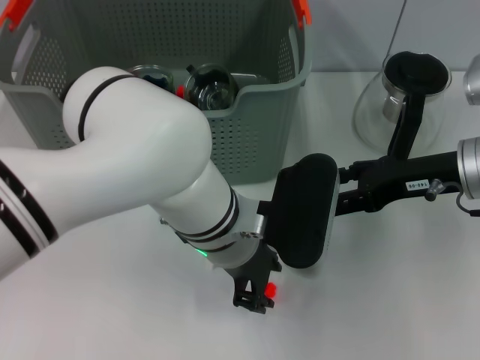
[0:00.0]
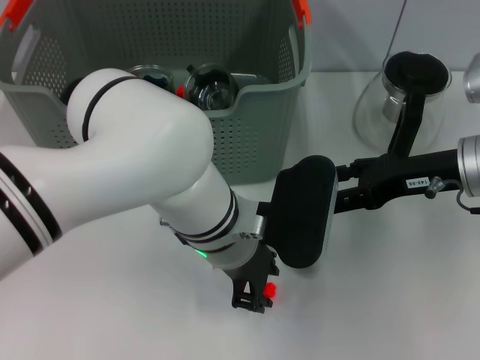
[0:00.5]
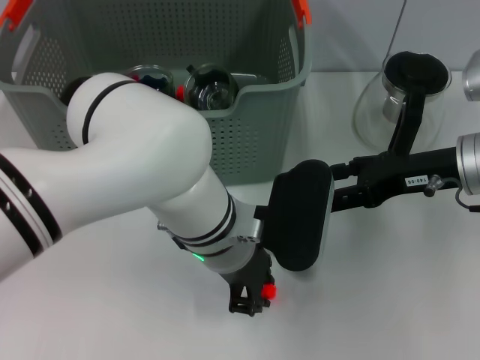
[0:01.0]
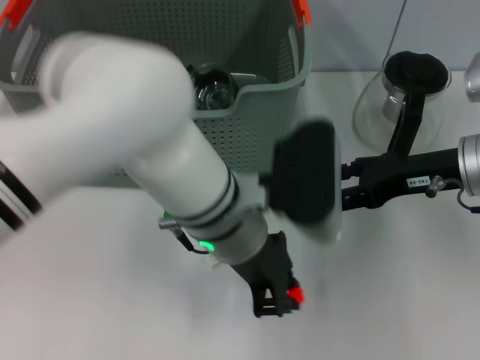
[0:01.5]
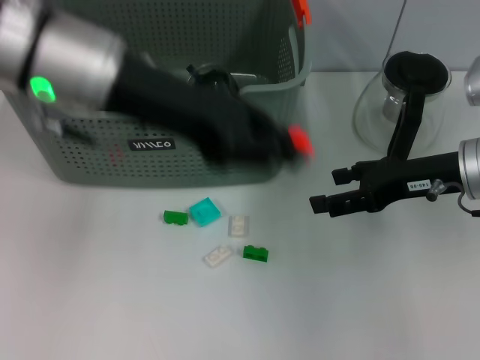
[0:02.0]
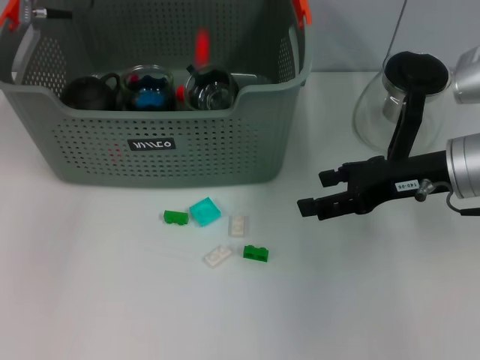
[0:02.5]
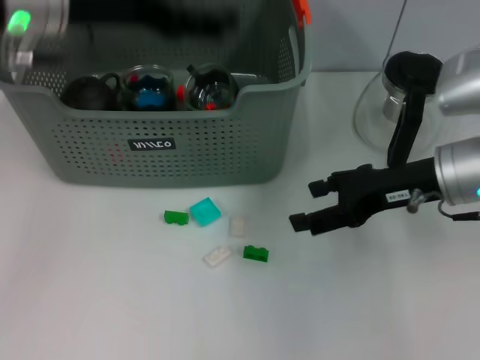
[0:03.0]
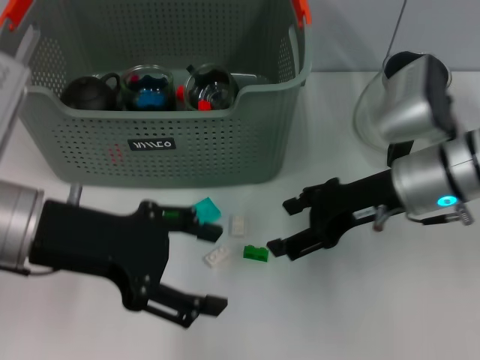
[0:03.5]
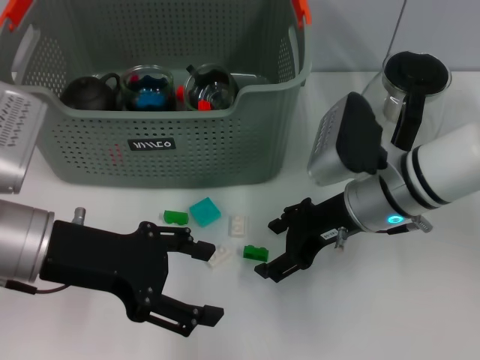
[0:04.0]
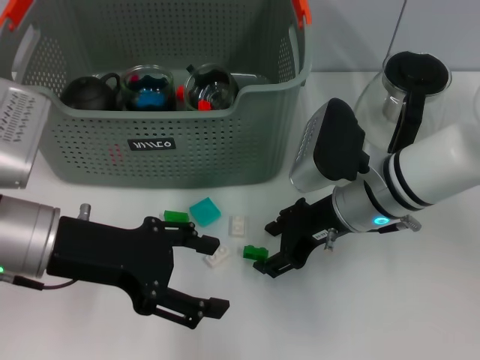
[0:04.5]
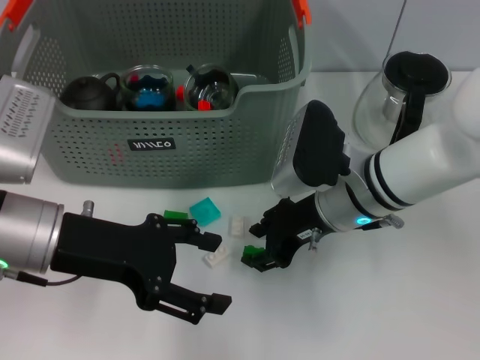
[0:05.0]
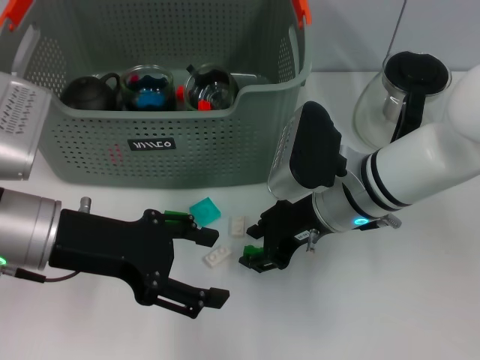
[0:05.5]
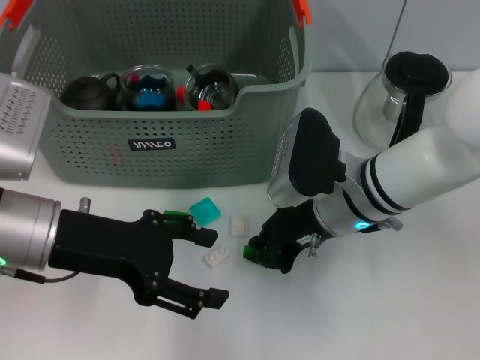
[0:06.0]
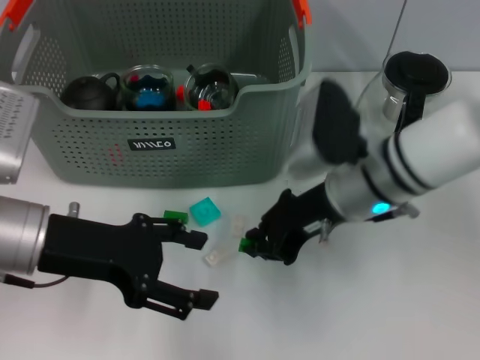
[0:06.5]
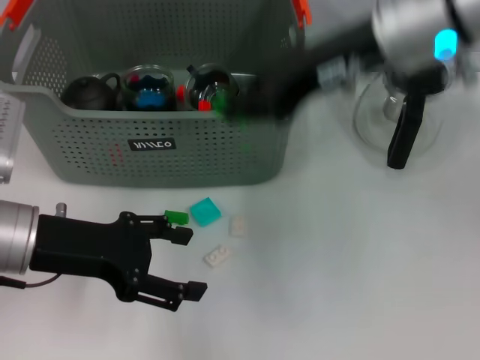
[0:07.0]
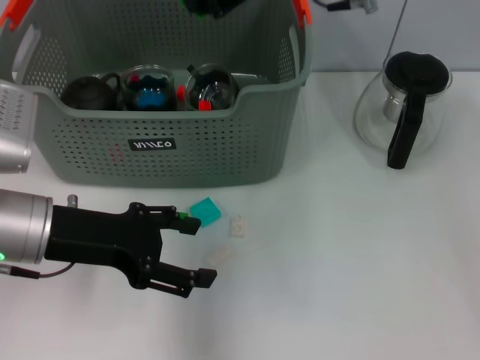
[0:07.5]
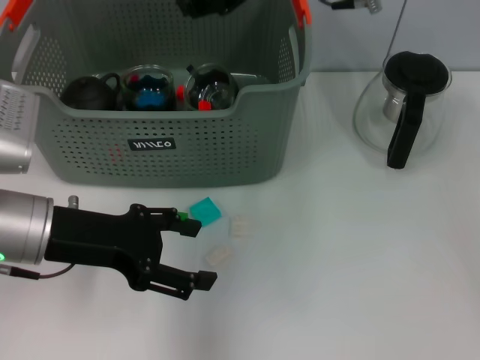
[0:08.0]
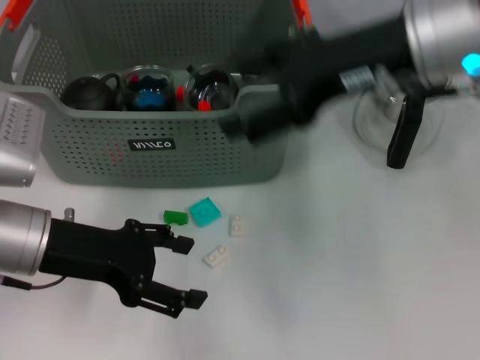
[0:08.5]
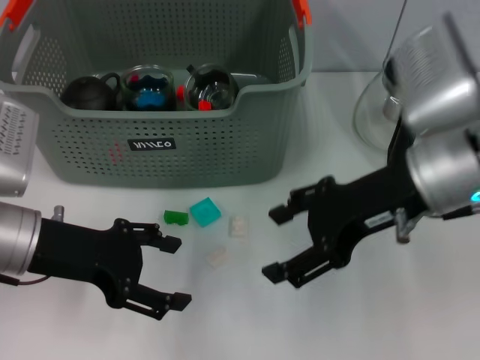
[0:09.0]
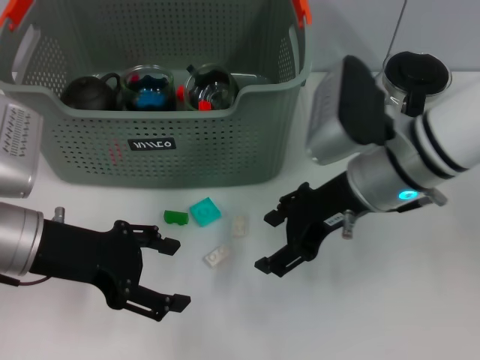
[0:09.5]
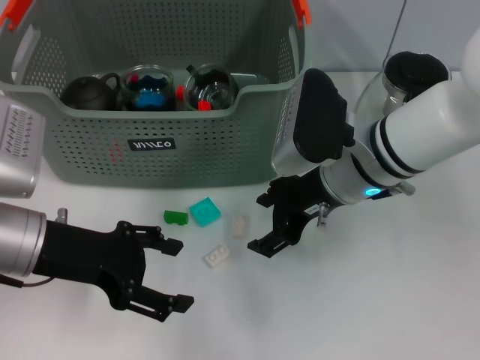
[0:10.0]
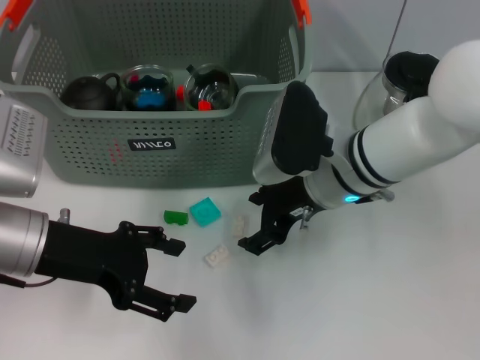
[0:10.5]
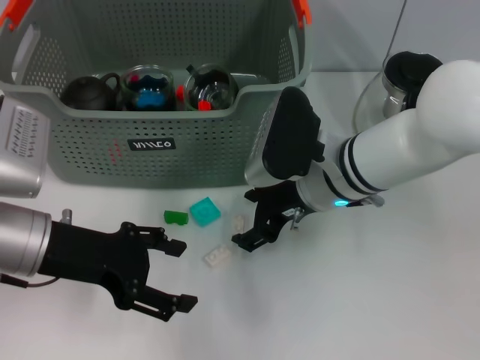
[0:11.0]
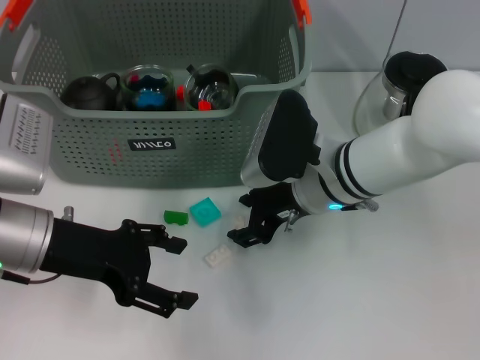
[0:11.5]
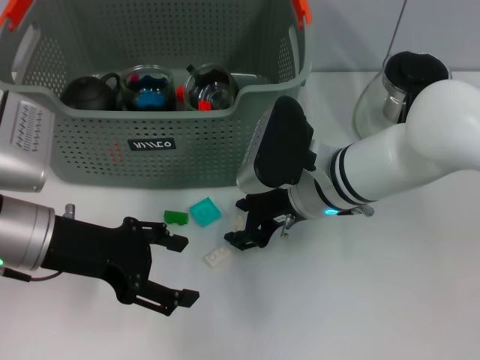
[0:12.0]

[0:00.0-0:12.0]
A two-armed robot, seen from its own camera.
Task of the whole recording: pick up the teacup on the table and place it into the storage bin, pick up the block on the table and place it into the storage bin.
Step, 0:01.5 to 0:02.5: Place the orange block in the storage box with left gripper.
Step, 0:03.5 to 0:06.0: Grasp the green block with right gripper.
Step, 0:06.5 to 0:08.0: Place the green block in the storage box with right gripper.
0:00.0 to 0:02.0: The left gripper goes approximately 20 cm upward and to the left, and closes.
0:02.0 to 0:04.0: The left gripper moves downward, backward and to the left, roughly 15 cm, and opens. The right gripper travels to the left by approximately 10 cm.
0:04.0 to 0:06.0: The right gripper closes.
0:06.0 to 0:08.0: The right gripper goes some 20 cm upward and forward.
0:08.0 to 0:10.0: The right gripper is displaced downward and backward by approximately 15 cm, and opens.
0:10.0 to 0:12.0: There are only small adjustments of the grippers.

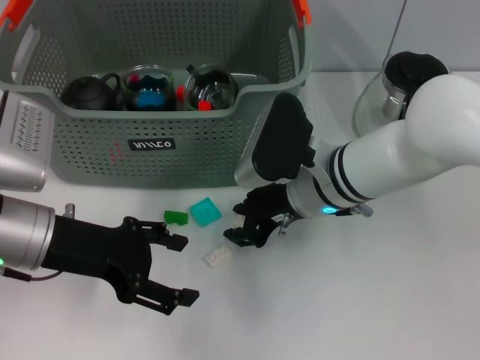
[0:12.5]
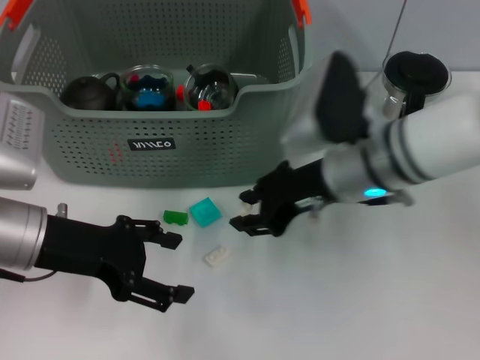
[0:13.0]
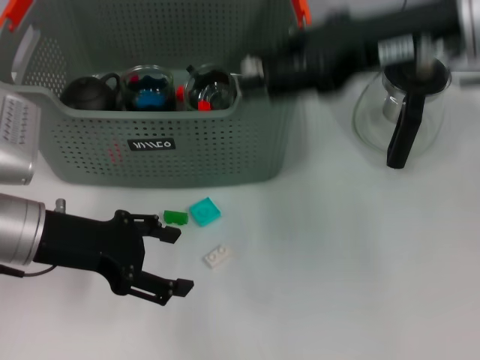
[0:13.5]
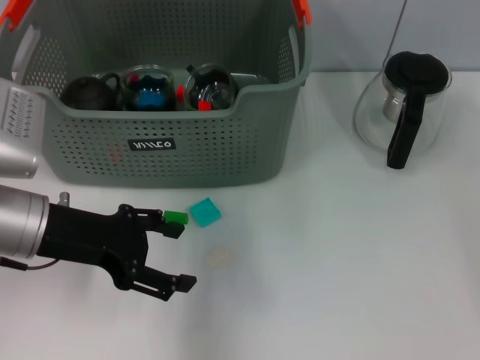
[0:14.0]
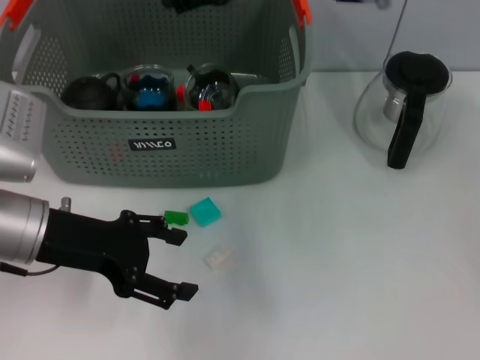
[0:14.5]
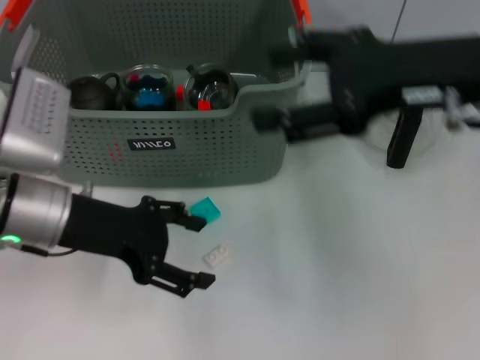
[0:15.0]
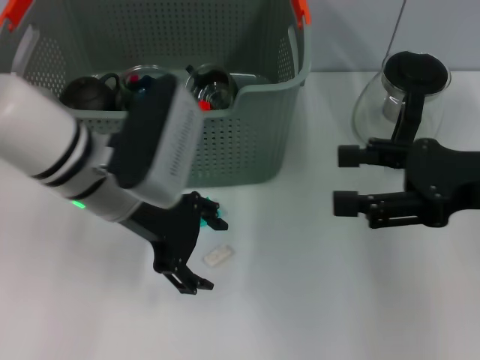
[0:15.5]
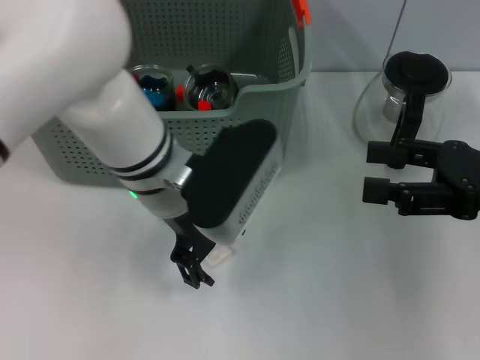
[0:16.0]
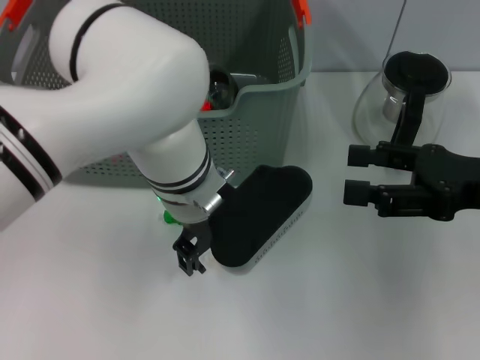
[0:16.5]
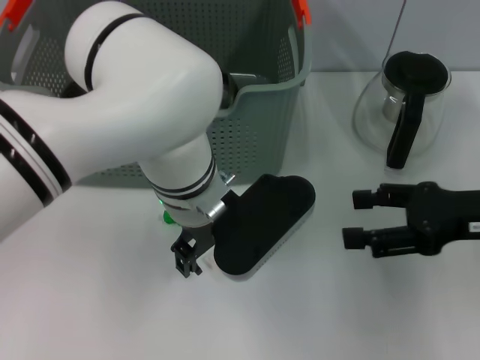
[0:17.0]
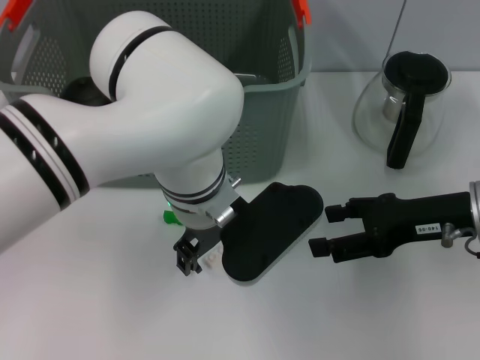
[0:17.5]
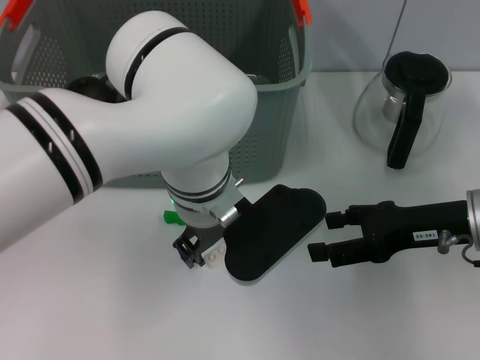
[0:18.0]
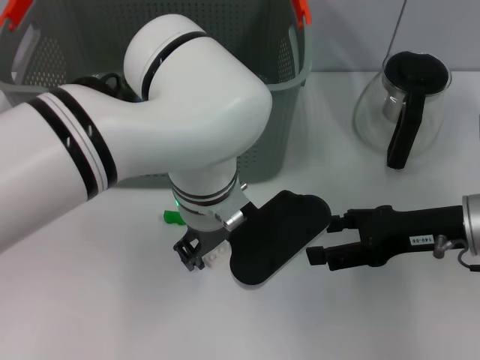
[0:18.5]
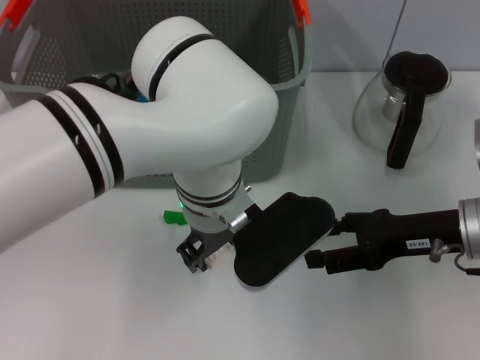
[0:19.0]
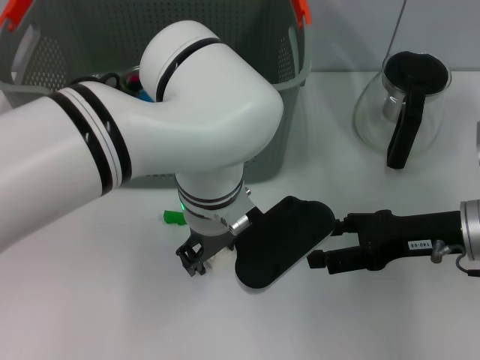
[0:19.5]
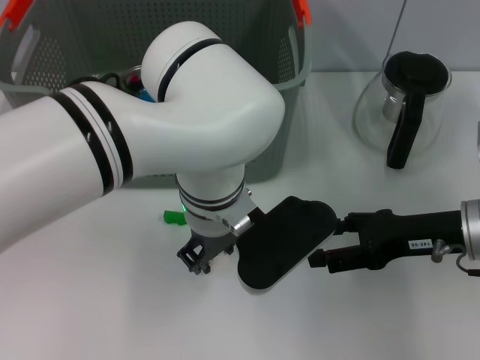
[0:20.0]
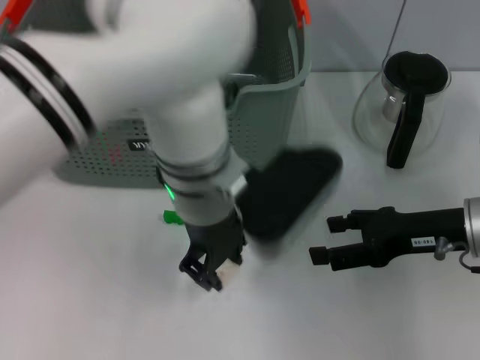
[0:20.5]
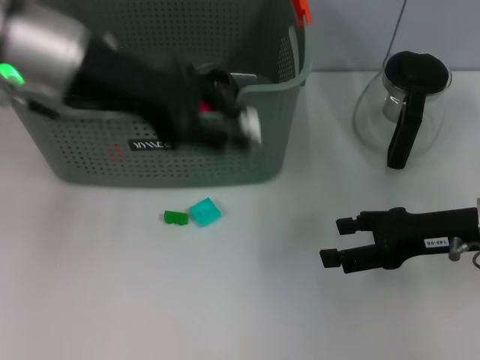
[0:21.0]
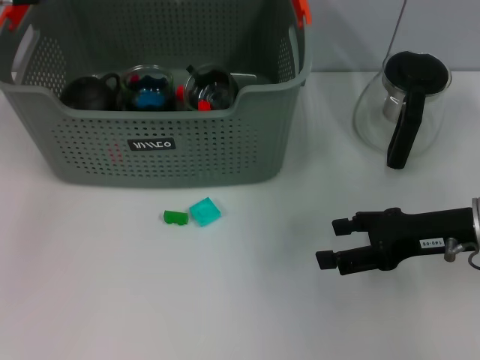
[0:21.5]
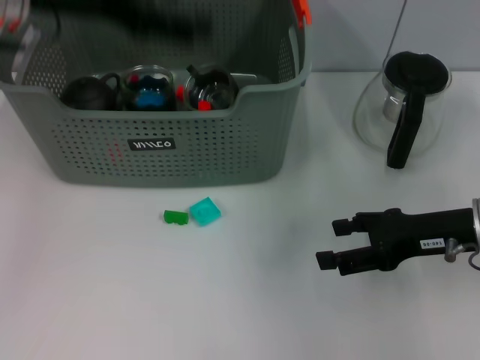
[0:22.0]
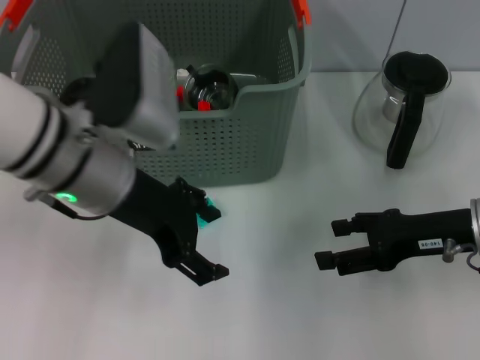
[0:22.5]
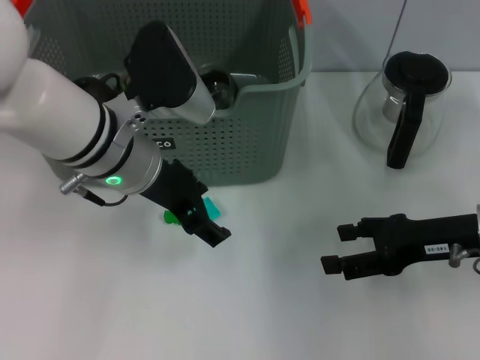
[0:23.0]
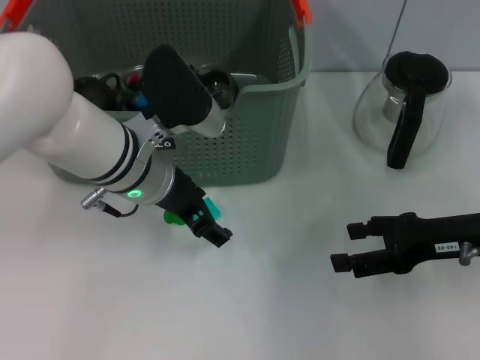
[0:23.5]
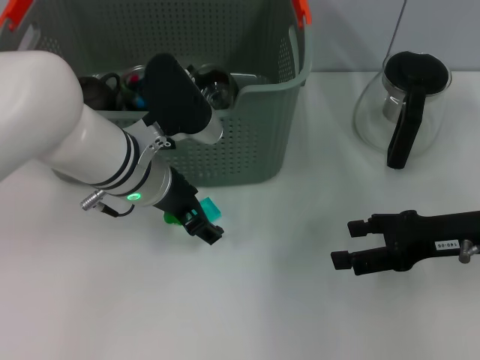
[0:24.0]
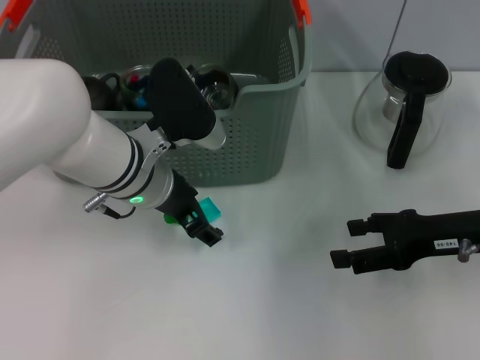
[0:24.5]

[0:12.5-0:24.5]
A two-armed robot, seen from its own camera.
Task of the whole recording: pick up the teacup on the table and place it into the storage bin, pick up the block on the table and place it into the storage bin.
Step, 0:12.5 to 0:14.0: Place the white block in the storage box with right gripper.
Step, 0:14.5 to 0:20.0: Grasp the white block with left gripper.
Step, 0:20.5 to 0:21.5: Place the white block in the storage box with left gripper.
0:12.5 to 0:14.5: The right gripper travels upward by roughly 20 cm, and opens.
0:14.5 to 0:16.5: The left gripper travels to the right by roughly 20 cm; the right gripper goes roughly 25 cm to the right, backward and downward.
0:16.5 to 0:18.5: The right gripper travels downward by some 5 cm.
0:20.5 to 0:22.5: The left gripper goes approximately 10 cm to the left, and opens its fingers.
0:22.5 to 0:24.5: The left gripper goes approximately 10 cm downward.

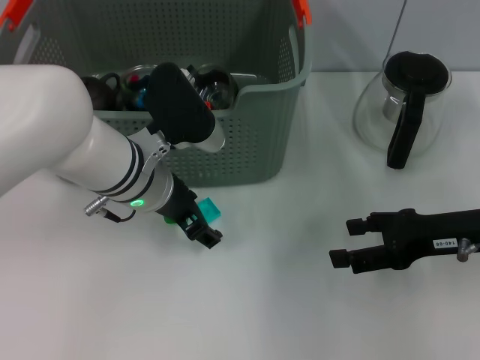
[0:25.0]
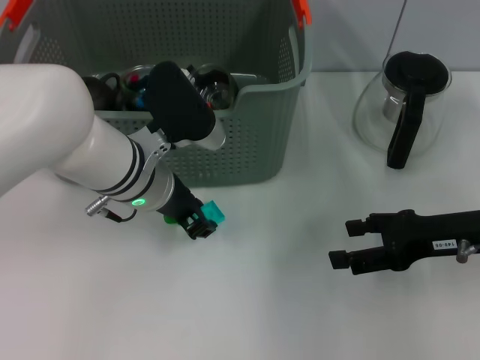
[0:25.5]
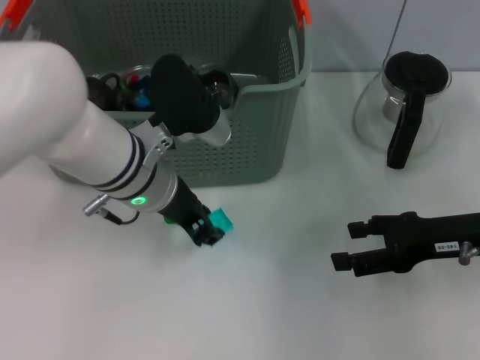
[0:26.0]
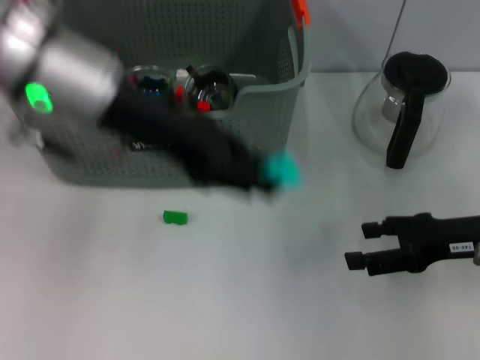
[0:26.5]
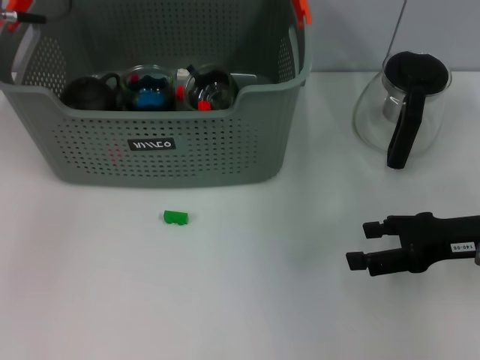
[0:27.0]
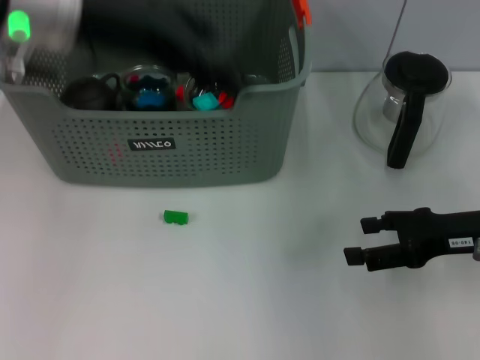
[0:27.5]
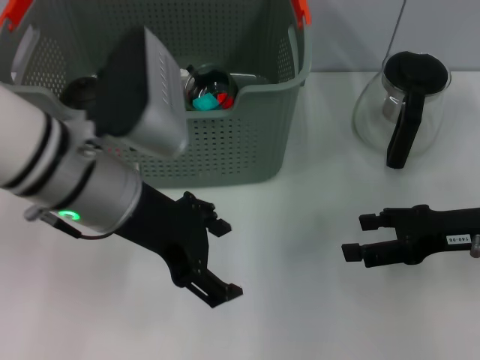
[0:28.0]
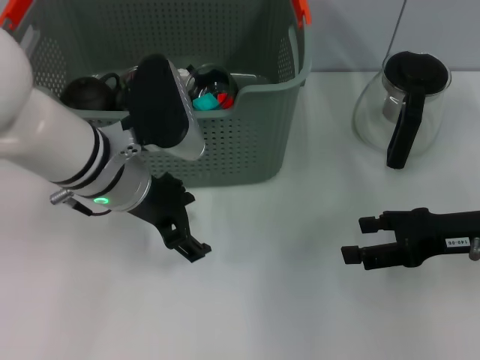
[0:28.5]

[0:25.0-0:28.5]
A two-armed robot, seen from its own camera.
Task of the whole recording: pick up the teacup on the table and place it into the storage bin, pick up the block on the table and place it into the storage bin.
Step, 0:26.0 to 0:27.0: Place the light blue block in the storage box with left gripper.
0:25.0 to 0:27.0: The left gripper is displaced upward and to the left by some 20 cm, and closes its fingers.
0:27.0 to 0:28.5: The left gripper heads downward, backward and to the right, covering approximately 15 cm, and opens its fingers.
